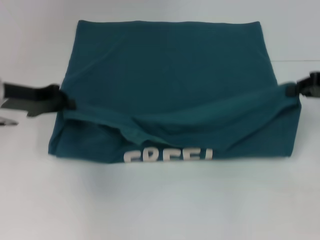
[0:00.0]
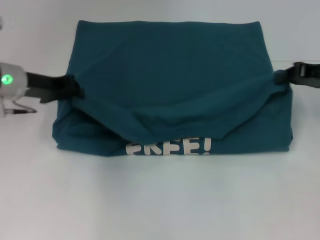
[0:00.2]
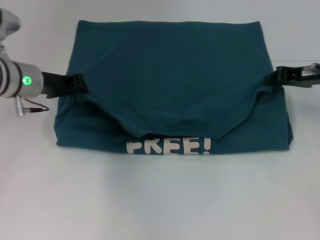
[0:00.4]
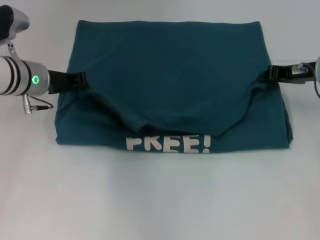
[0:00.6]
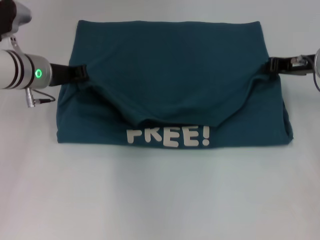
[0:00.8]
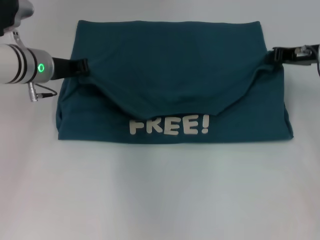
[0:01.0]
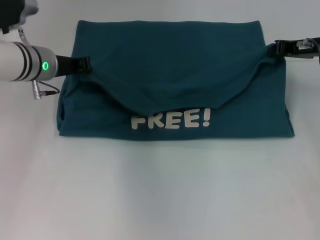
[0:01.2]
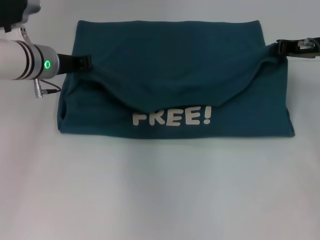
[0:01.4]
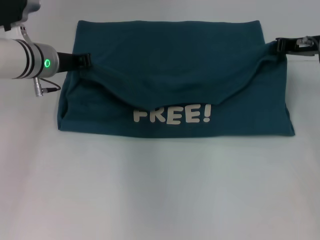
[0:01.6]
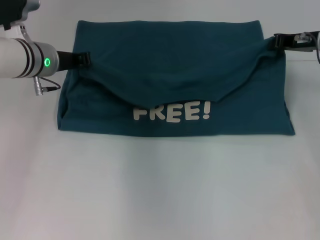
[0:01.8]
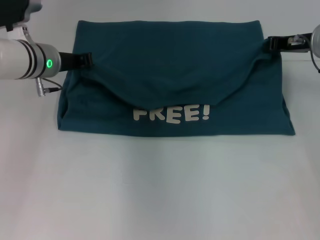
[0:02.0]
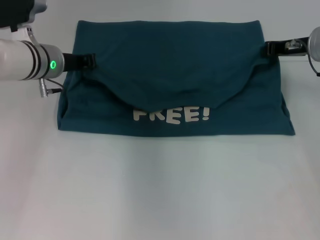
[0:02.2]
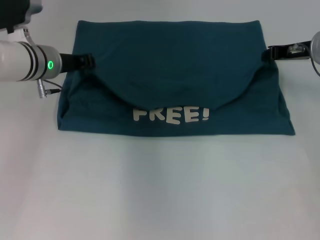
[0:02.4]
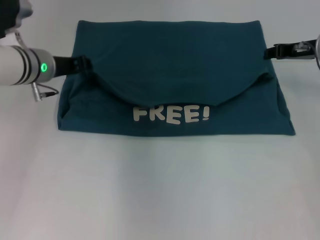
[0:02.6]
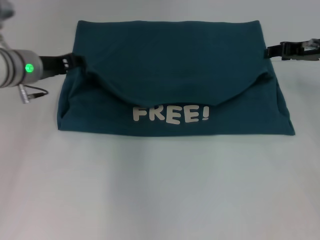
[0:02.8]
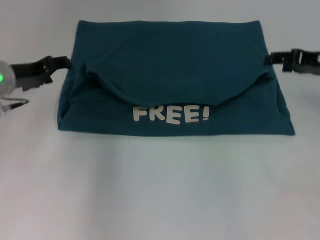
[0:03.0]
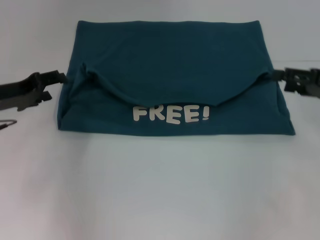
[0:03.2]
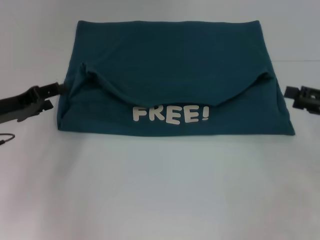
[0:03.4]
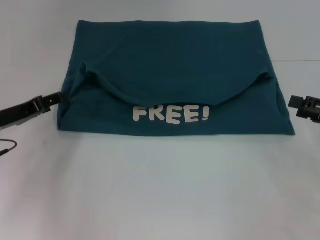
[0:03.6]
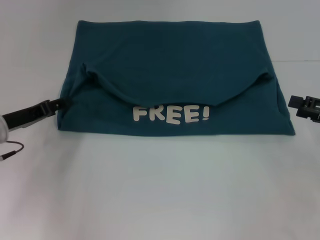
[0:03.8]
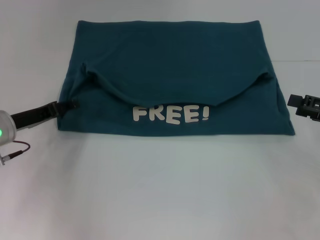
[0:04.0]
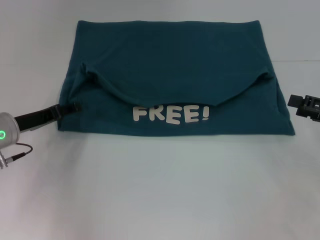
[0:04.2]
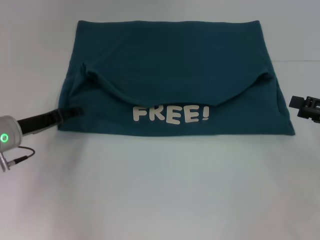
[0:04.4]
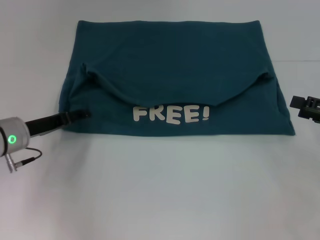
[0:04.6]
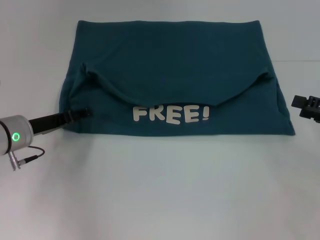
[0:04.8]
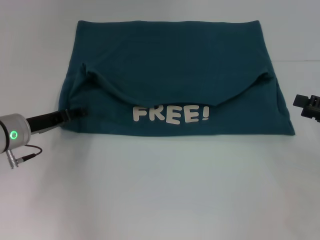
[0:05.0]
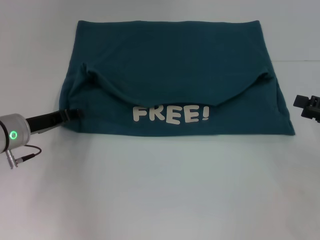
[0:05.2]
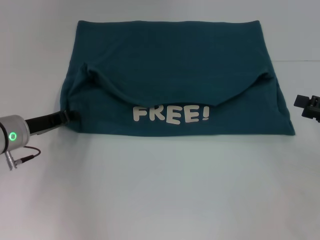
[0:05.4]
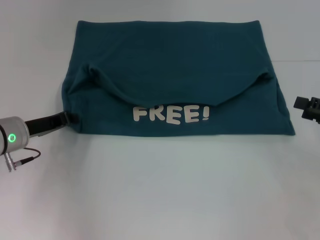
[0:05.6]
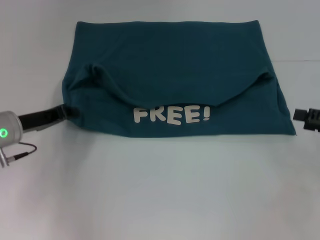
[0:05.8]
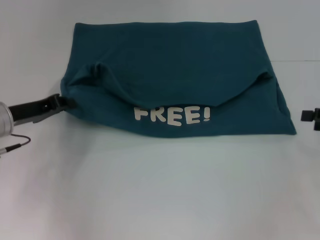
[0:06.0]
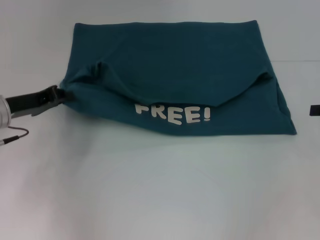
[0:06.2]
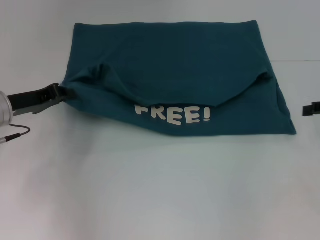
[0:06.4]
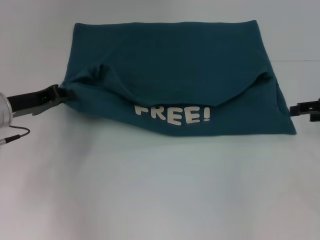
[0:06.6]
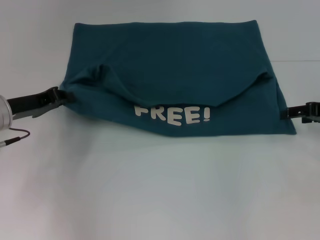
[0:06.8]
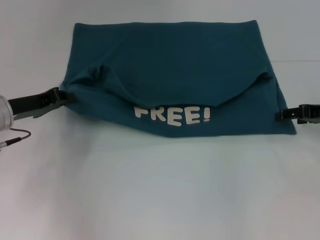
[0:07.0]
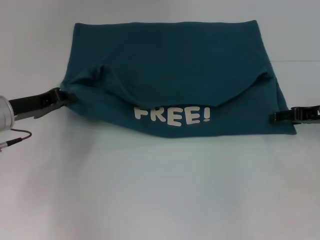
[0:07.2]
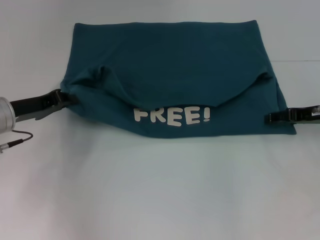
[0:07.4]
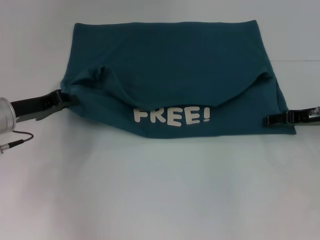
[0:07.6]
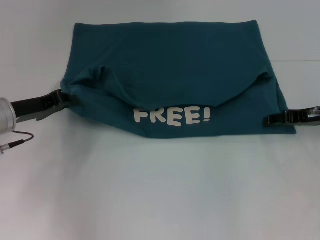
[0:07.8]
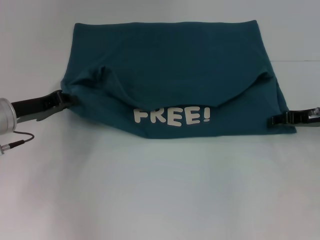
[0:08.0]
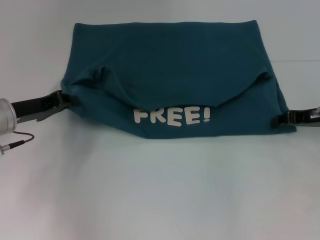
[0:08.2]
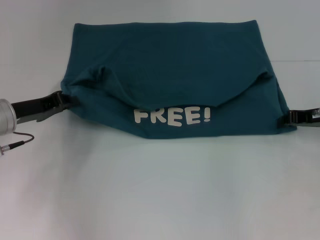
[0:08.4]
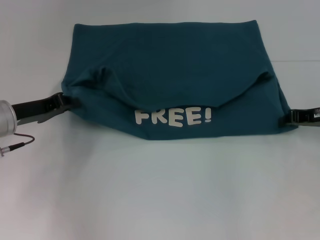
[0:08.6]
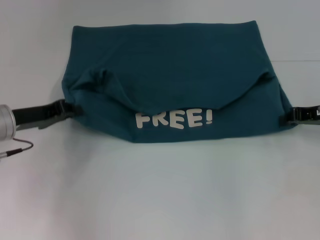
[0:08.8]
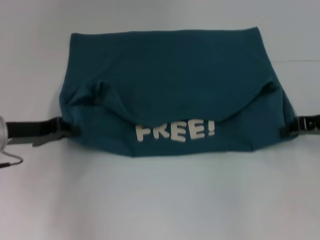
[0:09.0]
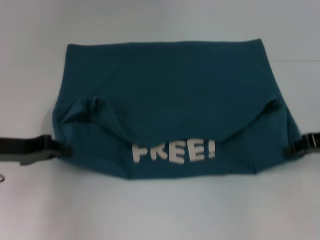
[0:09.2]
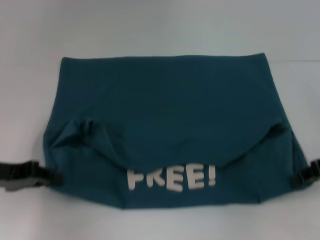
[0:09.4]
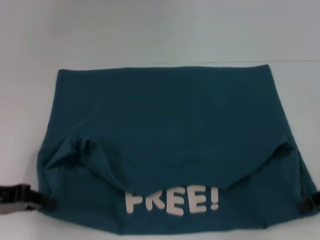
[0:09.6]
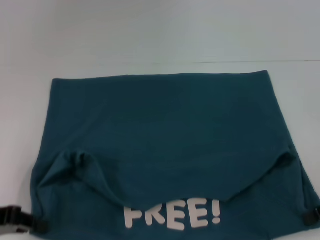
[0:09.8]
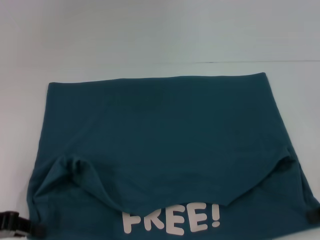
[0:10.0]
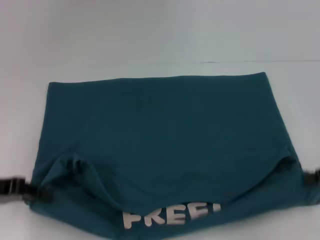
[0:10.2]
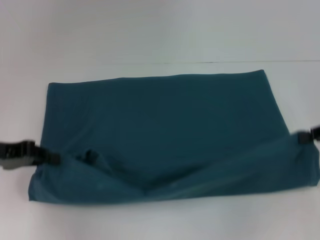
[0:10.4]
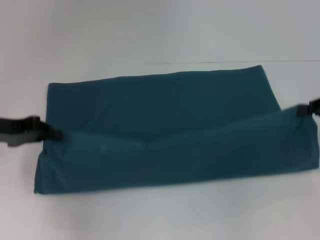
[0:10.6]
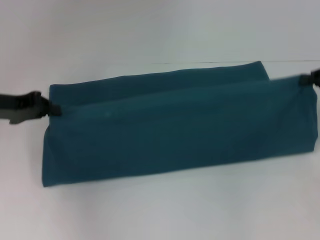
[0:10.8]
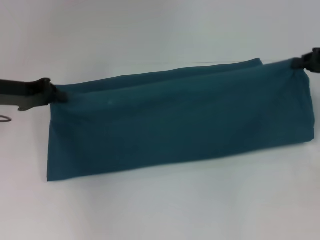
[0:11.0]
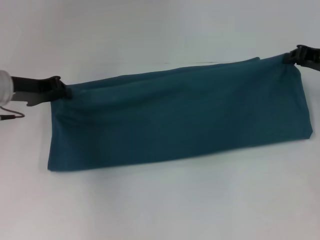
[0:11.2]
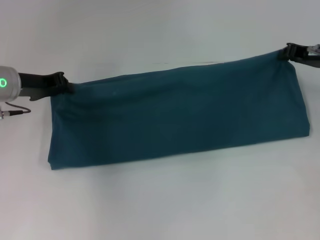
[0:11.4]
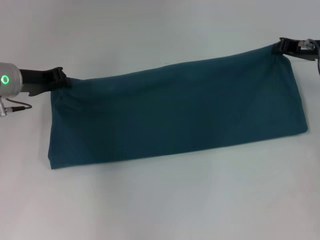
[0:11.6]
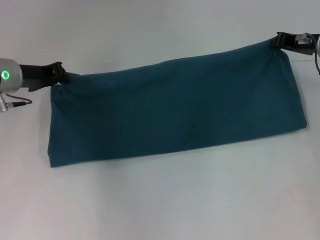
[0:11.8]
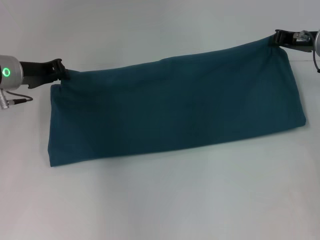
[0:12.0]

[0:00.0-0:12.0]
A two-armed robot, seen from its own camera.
Step, 0.0 to 2.4 s: Fold the clothes to the left.
Step, 0.0 to 2.4 s: Fold the clothes to the right.
Step, 2.6 to 9.6 s: Pull the clothes with your left hand.
Step, 2.6 to 9.6 s: Pull the clothes with your right hand.
0.0 to 1.6 s: The left gripper is displaced to the right and forward by some 10 cm. Meanwhile the right gripper shifts roughly 10 cm forward and to the left.
1.6 to 3.0 s: The right gripper shifts by roughly 5 cm, and opens. Meanwhile the left gripper goes about 10 cm to the left and backward, and opens.
3.0 to 4.4 s: The right gripper is displaced backward and to the right by some 10 cm. Meanwhile the left gripper heads downward, covering roughly 10 cm.
4.4 to 6.0 s: The left gripper closes.
6.0 to 7.6 s: The right gripper travels to the left and forward by approximately 10 cm.
7.6 to 9.0 s: The right gripper closes.
9.0 to 10.4 s: The right gripper changes place by some 5 cm.
10.4 to 12.0 s: The left gripper shifts some 15 cm forward and to the right. The right gripper goes approximately 15 cm forward and to the left.

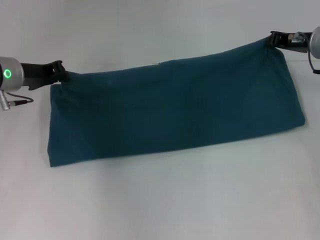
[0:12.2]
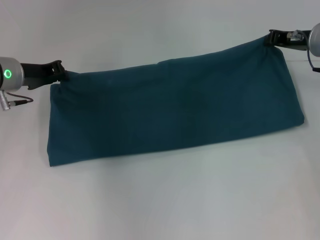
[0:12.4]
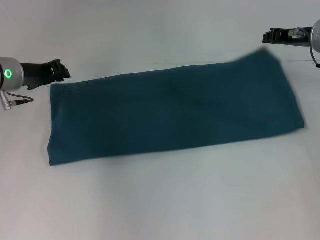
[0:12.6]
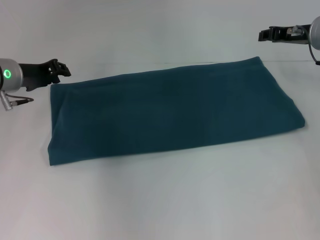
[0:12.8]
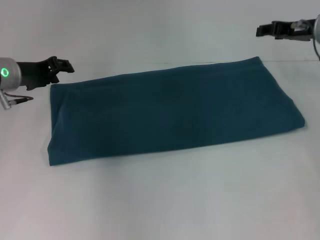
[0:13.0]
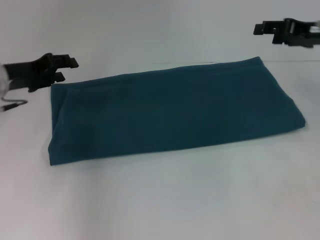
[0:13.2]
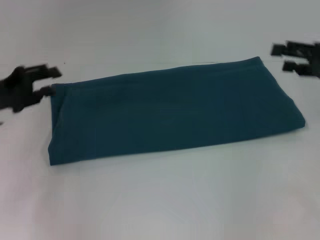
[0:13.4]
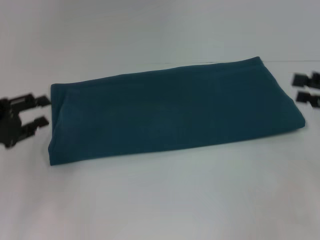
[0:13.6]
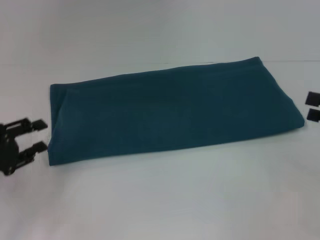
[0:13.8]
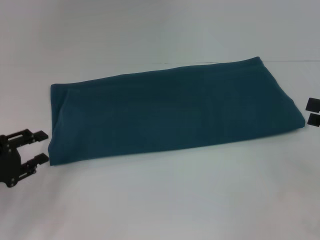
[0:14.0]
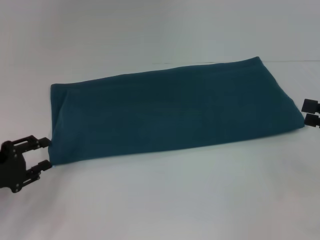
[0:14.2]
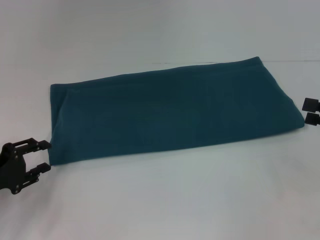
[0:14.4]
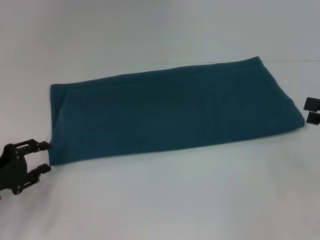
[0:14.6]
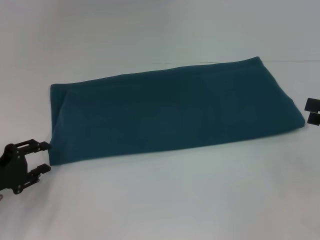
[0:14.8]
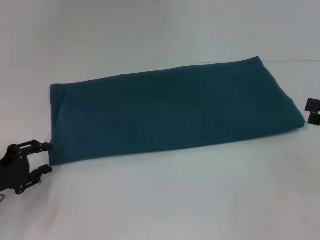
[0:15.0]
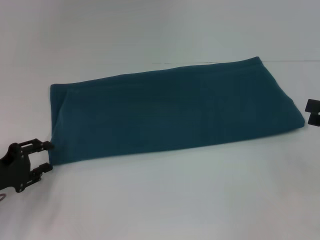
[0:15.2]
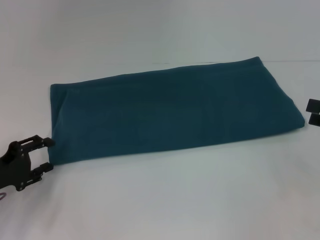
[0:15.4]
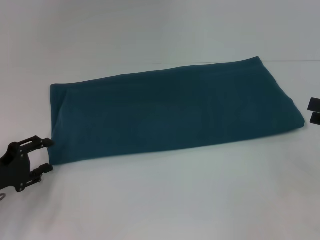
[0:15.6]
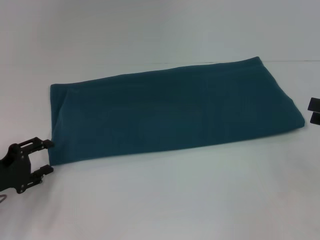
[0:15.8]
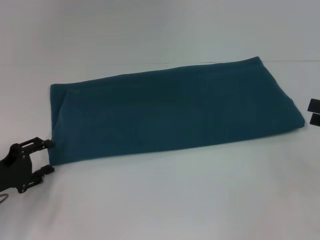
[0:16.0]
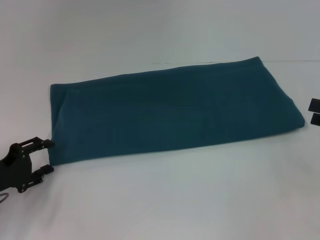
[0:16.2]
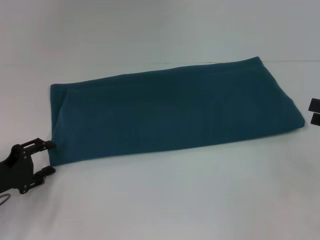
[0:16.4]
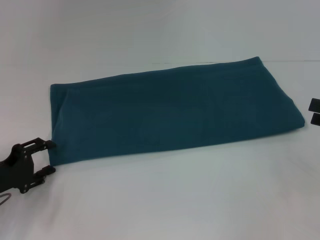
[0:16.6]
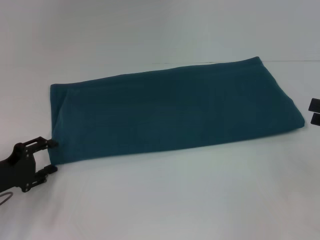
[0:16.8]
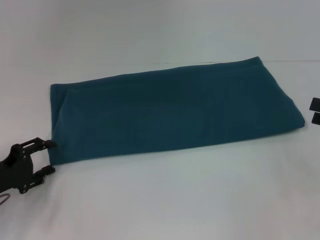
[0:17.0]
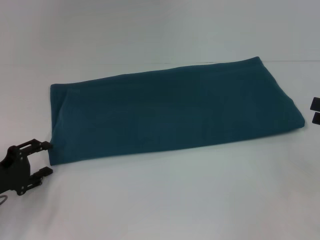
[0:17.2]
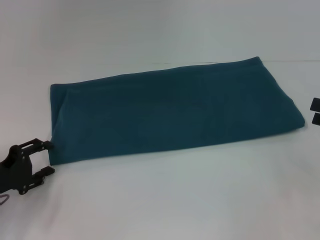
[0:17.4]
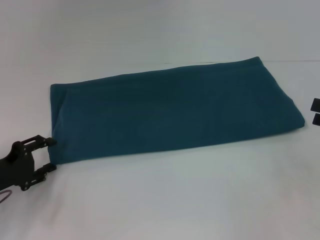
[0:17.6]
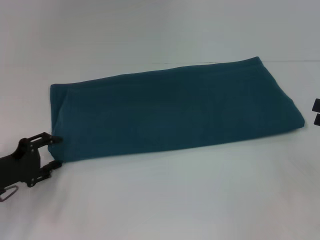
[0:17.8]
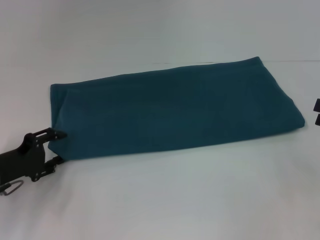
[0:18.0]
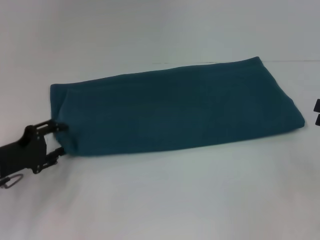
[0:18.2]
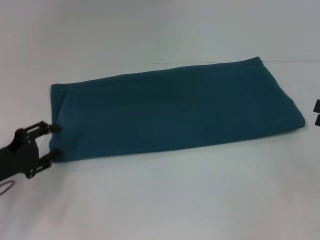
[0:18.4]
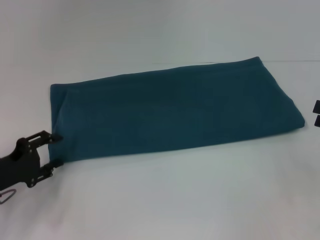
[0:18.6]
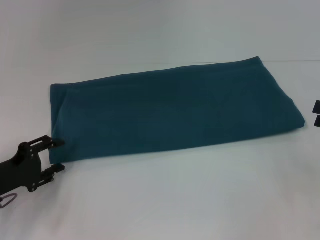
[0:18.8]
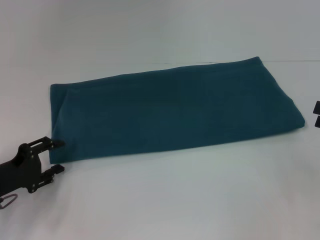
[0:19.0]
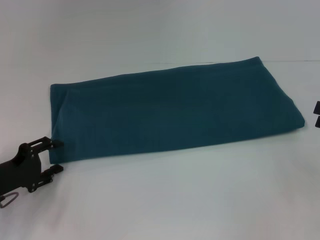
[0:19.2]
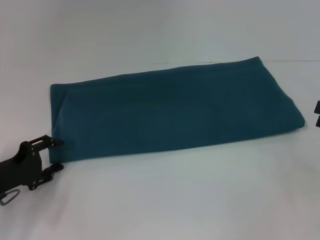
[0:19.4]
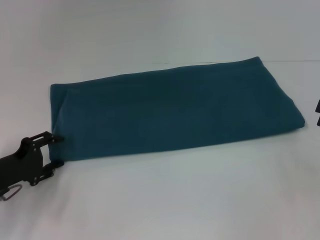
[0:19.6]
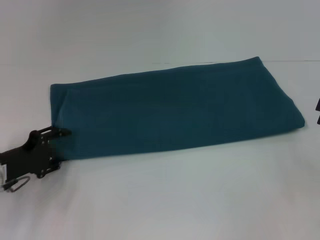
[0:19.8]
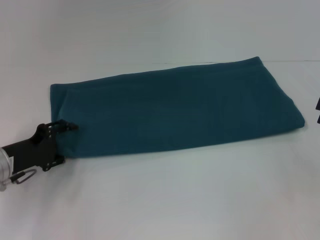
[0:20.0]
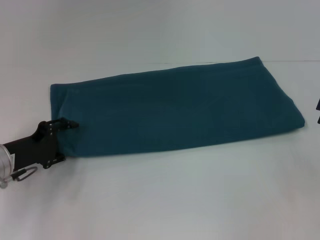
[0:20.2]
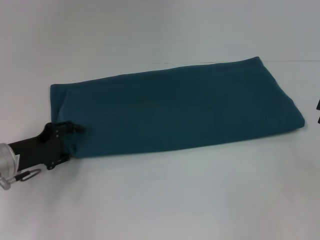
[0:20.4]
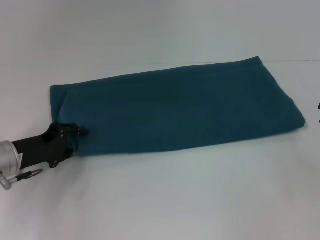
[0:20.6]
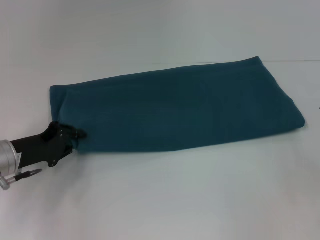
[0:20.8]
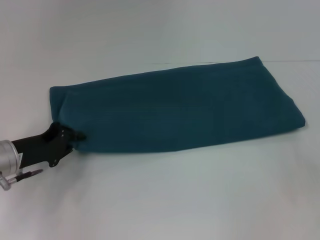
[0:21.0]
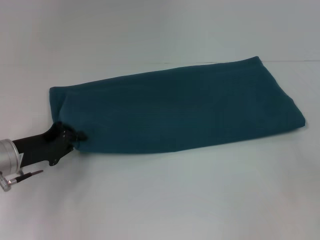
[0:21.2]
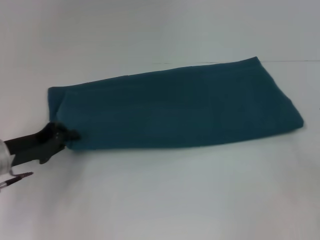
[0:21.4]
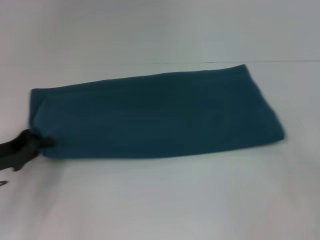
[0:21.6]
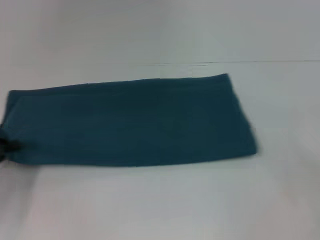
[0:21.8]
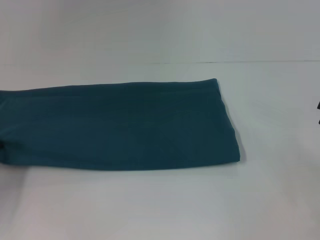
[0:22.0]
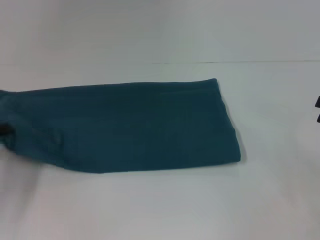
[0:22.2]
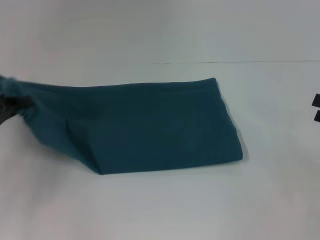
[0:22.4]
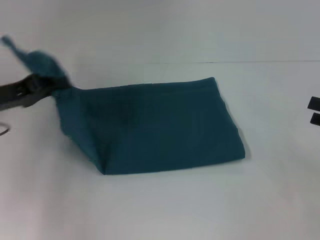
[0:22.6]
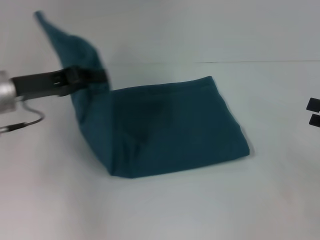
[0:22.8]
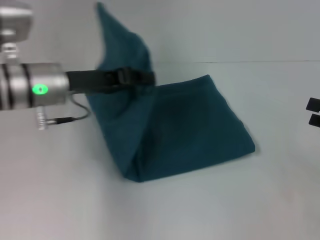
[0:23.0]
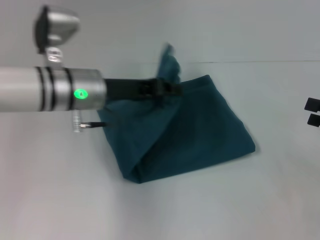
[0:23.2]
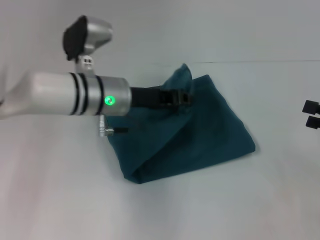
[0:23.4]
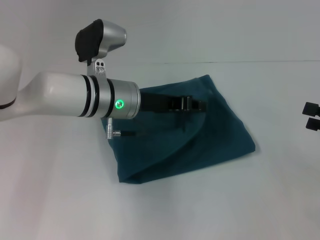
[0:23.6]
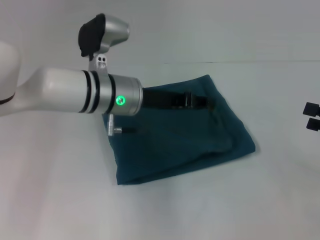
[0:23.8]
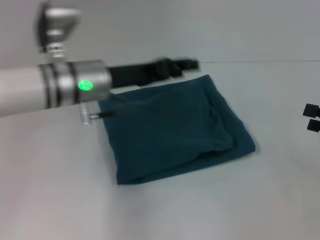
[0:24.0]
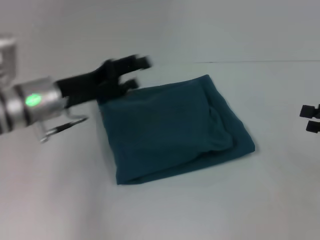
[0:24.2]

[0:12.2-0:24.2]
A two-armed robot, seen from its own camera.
Step, 12.2 to 23.8 s: Fold the clothes to the left.
12.2 to 13.8 s: The left gripper goes some 20 cm backward and to the left, and opens up; the right gripper heads backward and to the right, covering some 20 cm, and opens up.
13.8 to 15.2 s: The grippers make only small movements.
15.2 to 16.6 s: Neither gripper changes place.
16.6 to 19.8 s: The grippers move only a little.
19.8 to 21.2 s: The left gripper closes its fingers.
21.2 to 22.6 s: The left gripper heads upward, covering about 10 cm, and reaches roughly 10 cm to the left, then returns.
22.6 to 24.2 s: The left gripper is displaced to the right by roughly 10 cm, and opens.
